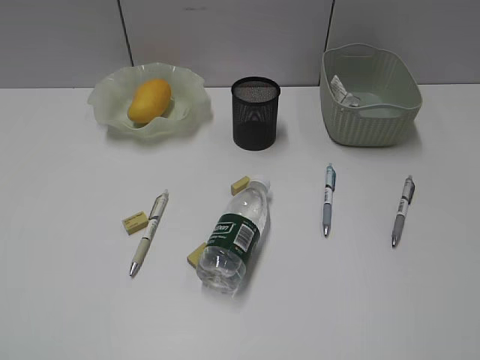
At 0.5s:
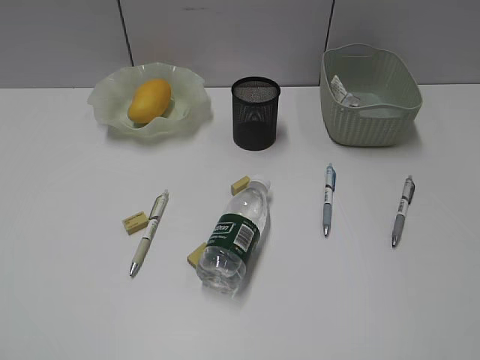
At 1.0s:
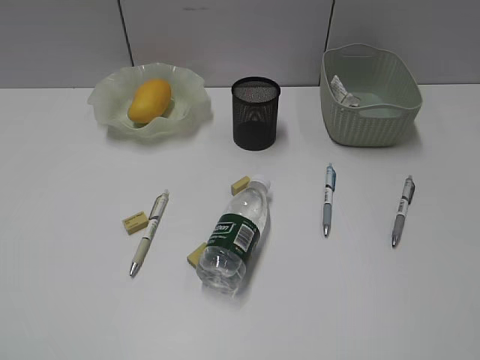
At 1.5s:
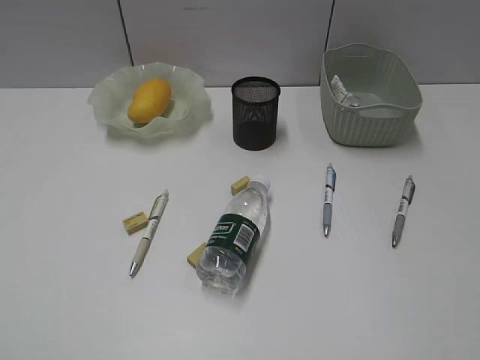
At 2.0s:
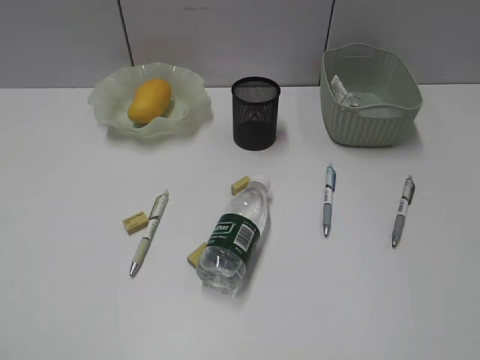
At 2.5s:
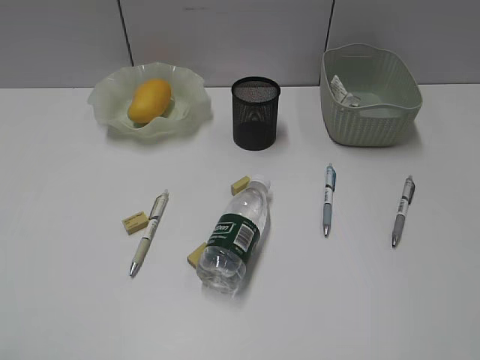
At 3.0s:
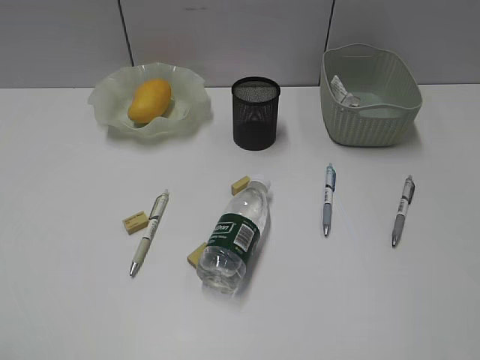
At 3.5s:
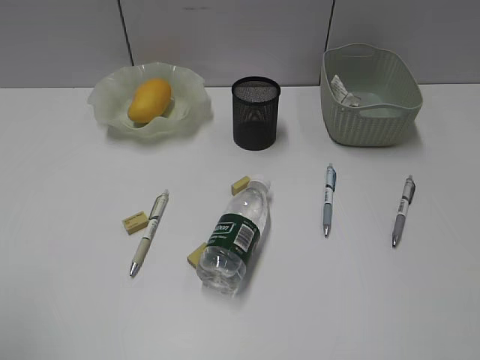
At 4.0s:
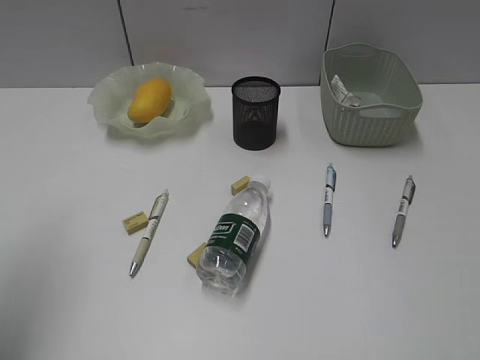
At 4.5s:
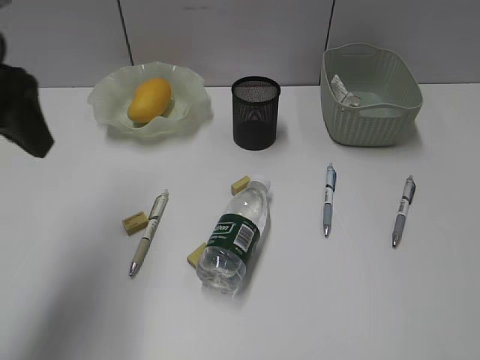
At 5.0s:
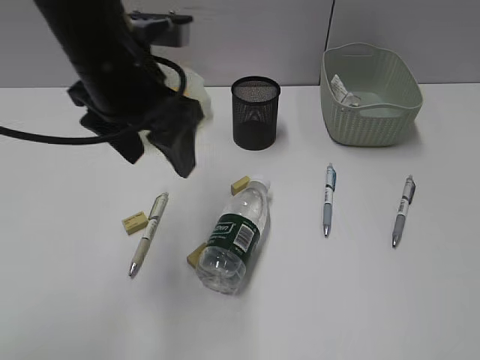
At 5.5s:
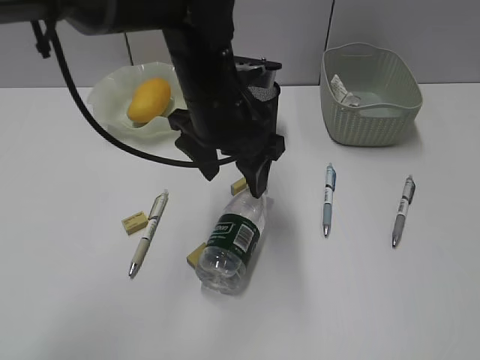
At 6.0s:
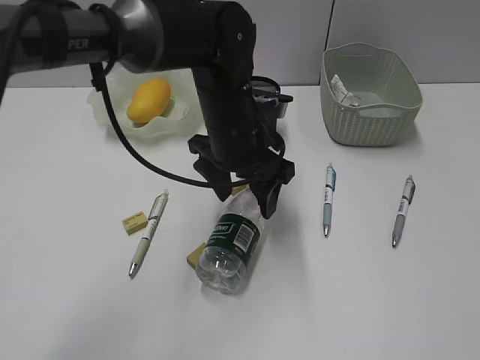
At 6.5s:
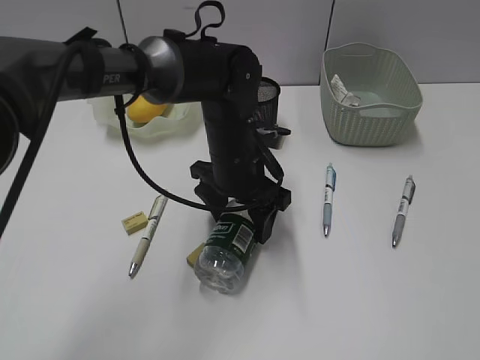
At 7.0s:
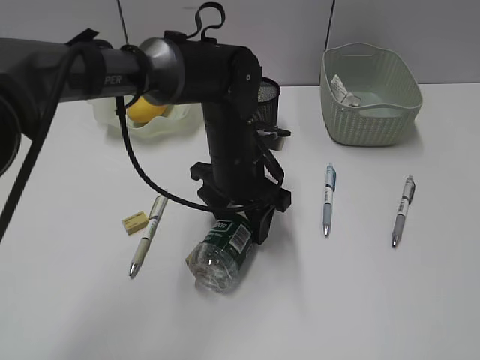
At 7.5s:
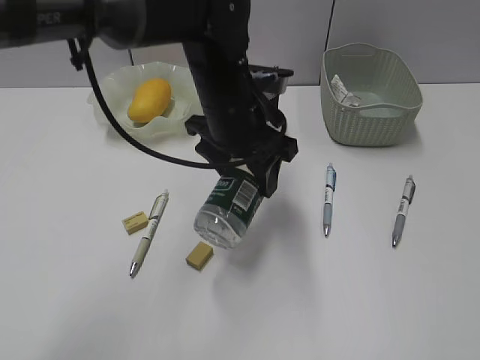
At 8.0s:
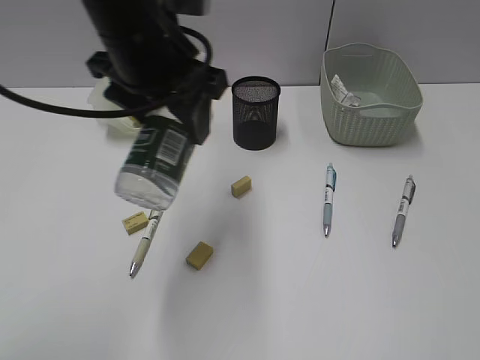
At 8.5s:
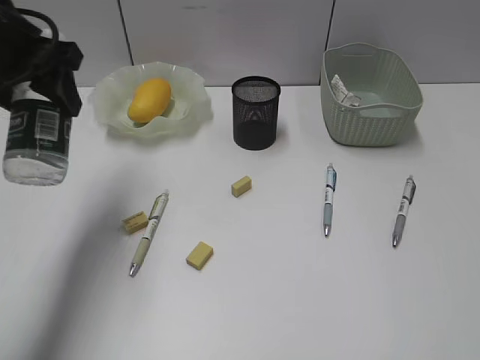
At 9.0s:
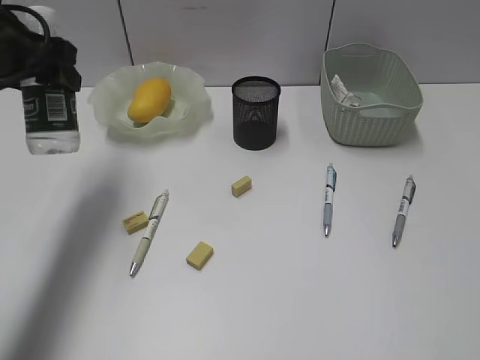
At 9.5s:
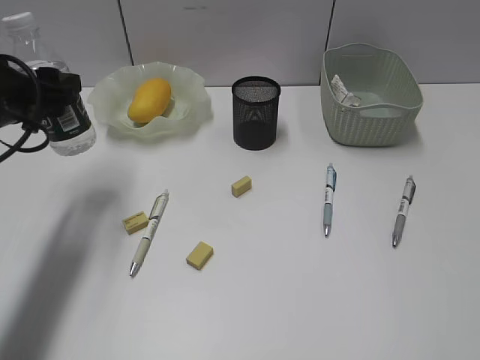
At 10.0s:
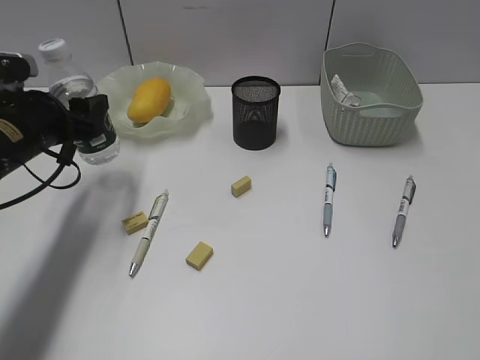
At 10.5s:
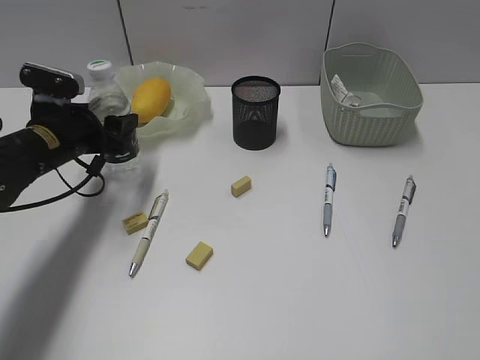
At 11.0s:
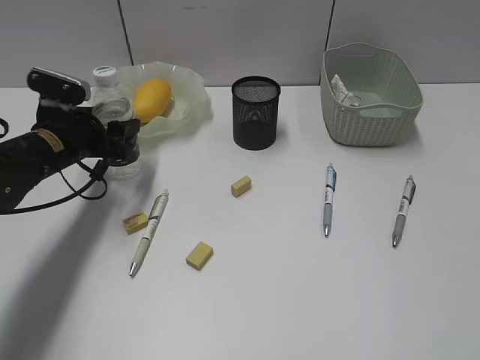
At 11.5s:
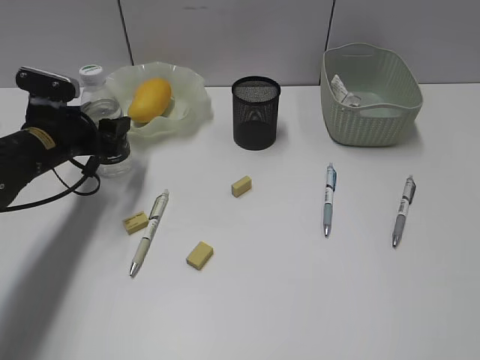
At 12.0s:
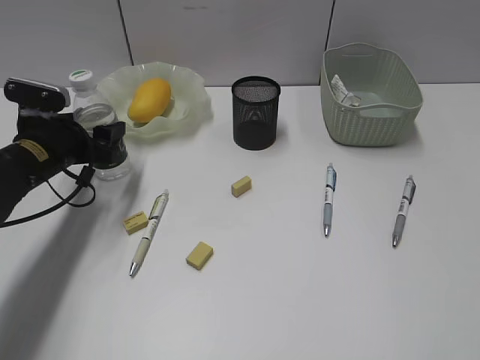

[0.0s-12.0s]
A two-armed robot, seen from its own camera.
Step, 0.0s to 7.0s: Grasp the bottle with left gripper.
0.0s to 2.0s: The two grippers keep their place.
2.0s to 4.0s: The left gripper travels forward by some 15 cm, and opens up.
4.0s to 6.0s: The left gripper goes some 40 cm to the right, forward and downward.
6.0s to 8.0s: The left gripper shifts approximately 15 cm upward and to the left.
8.0s to 10.0s: The left gripper is displaced to the left and downward by about 20 cm.
10.0s to 12.0s: The left gripper goes roughly 5 cm downward.

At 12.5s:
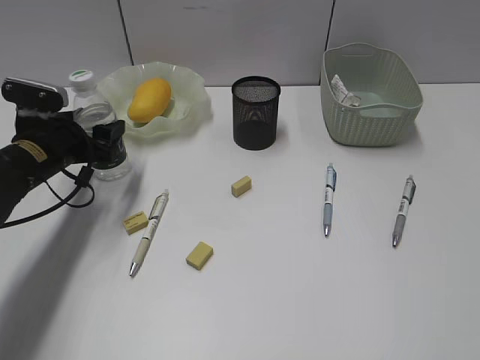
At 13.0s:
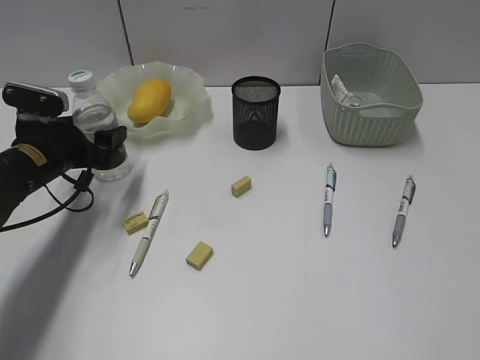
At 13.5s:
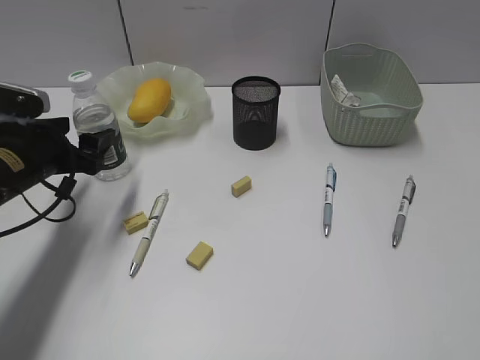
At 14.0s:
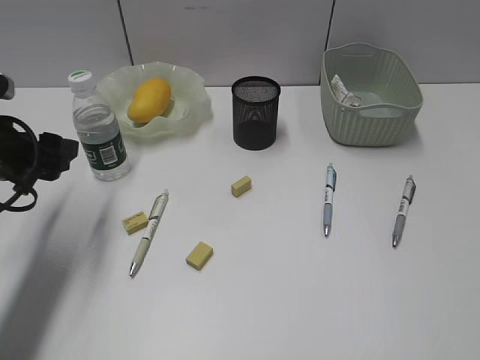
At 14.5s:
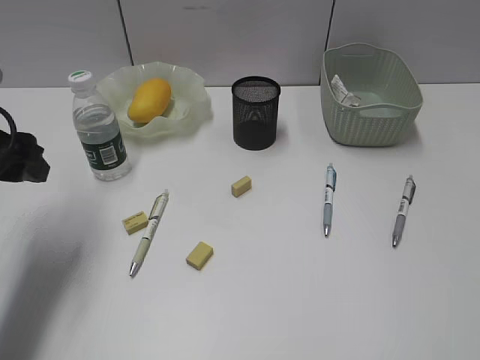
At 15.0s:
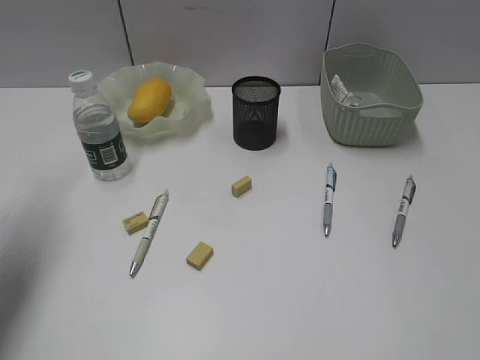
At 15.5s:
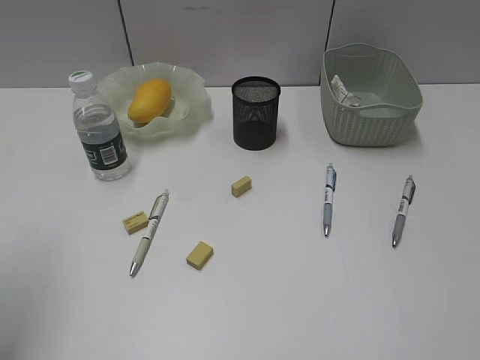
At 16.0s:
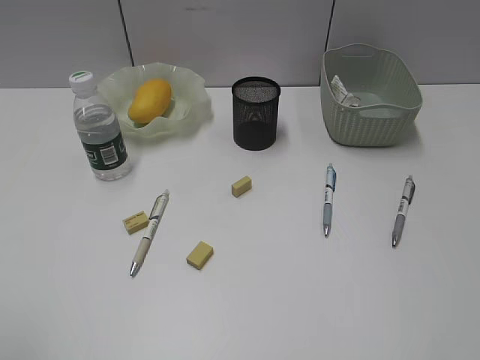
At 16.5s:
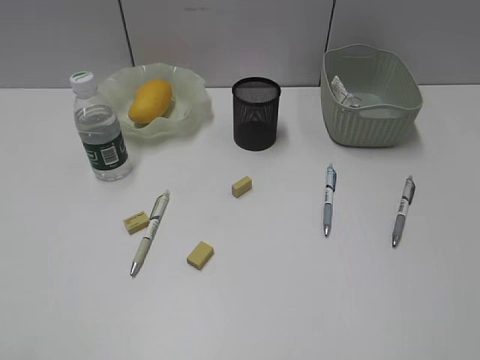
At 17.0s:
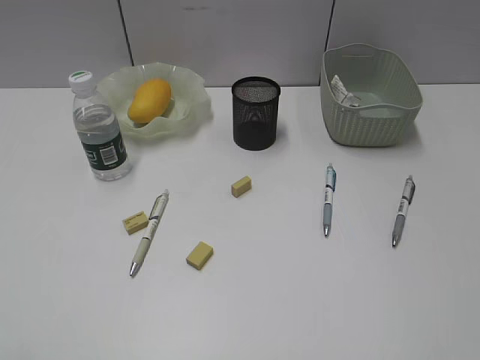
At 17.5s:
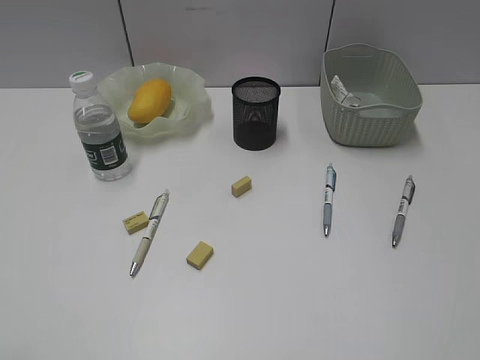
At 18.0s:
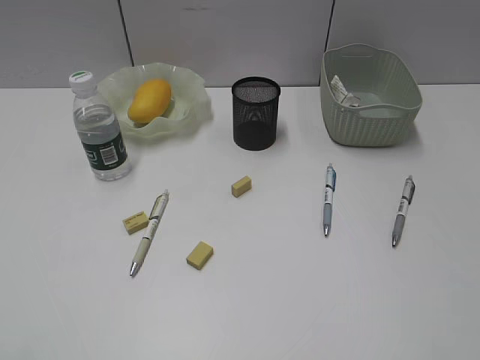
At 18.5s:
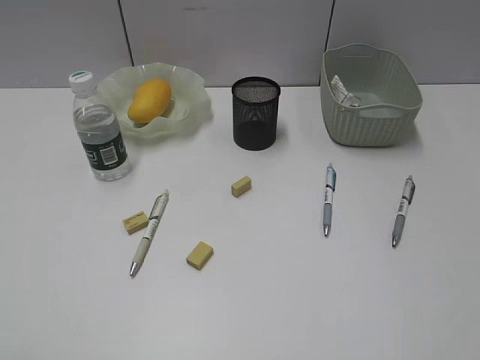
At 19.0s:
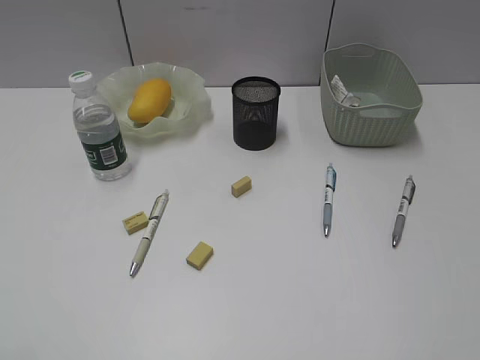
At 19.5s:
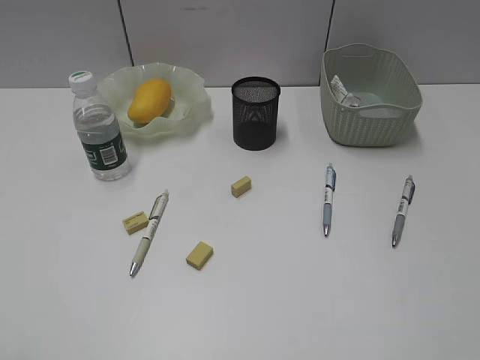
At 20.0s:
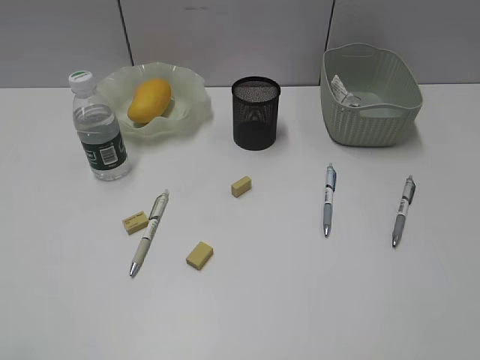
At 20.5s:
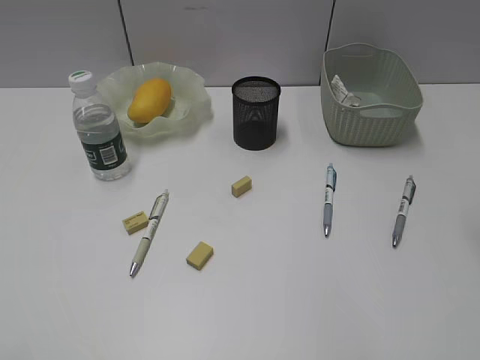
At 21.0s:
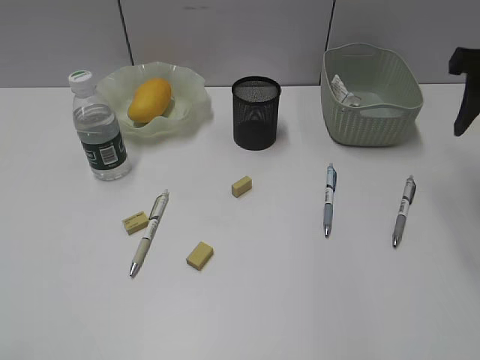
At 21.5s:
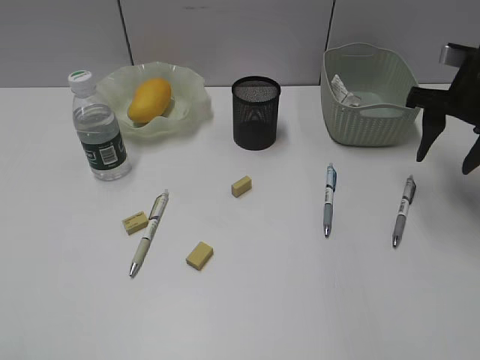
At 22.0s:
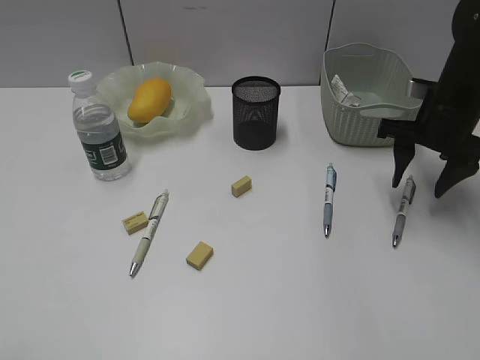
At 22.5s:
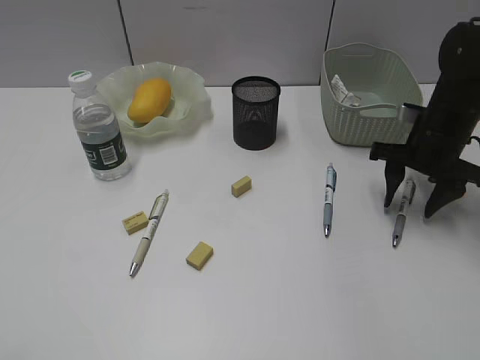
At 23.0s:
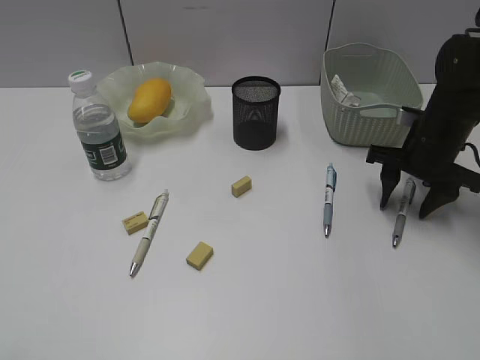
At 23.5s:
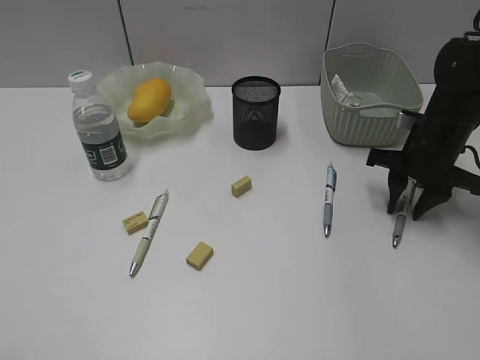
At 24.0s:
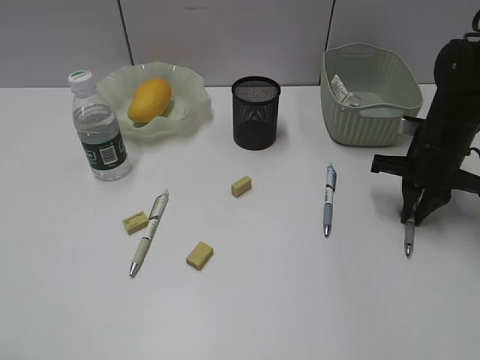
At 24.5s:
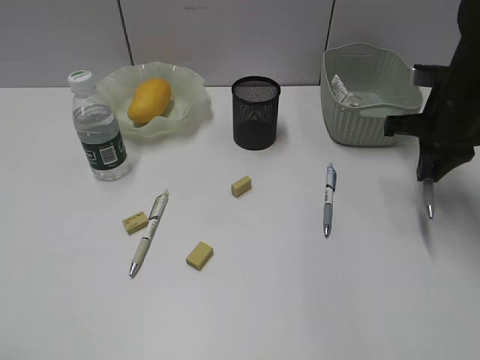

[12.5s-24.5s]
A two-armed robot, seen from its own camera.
Step, 14.0s to 23.5s: Grasp the gray pen with right gripper.
12.5s to 14.5s: The left gripper is displaced upward and backward by about 15 cm.
14.5s to 16.5s: The left gripper is displaced backward by approximately 30 cm.
16.5s to 18.5s: Both grippers stay about where they are.
20.5s to 22.5s: The right gripper shifts about 30 cm downward and forward.
22.5s to 24.5s: The right gripper goes about 5 cm upward, and closes up.

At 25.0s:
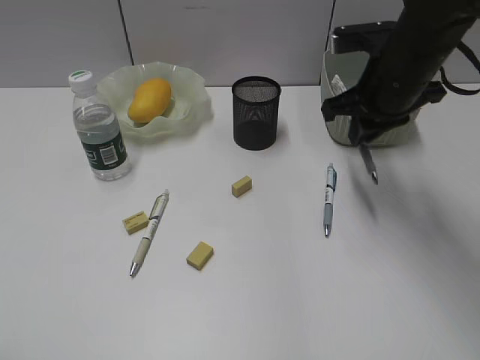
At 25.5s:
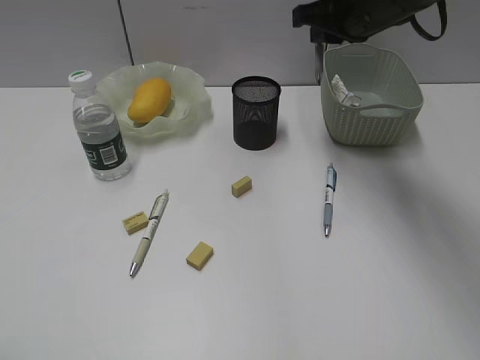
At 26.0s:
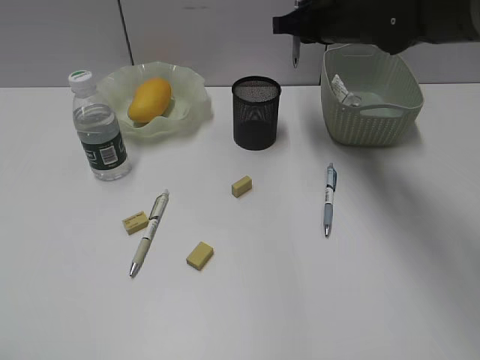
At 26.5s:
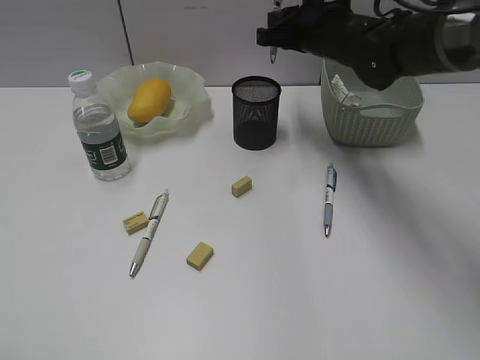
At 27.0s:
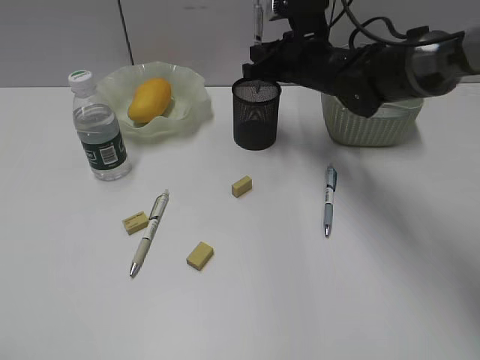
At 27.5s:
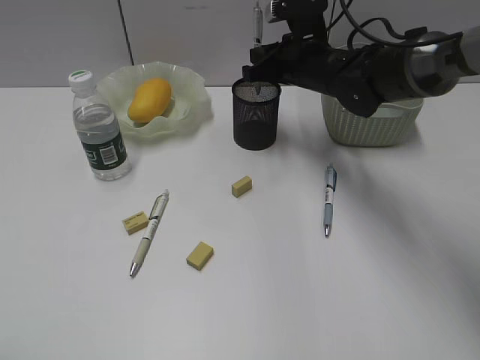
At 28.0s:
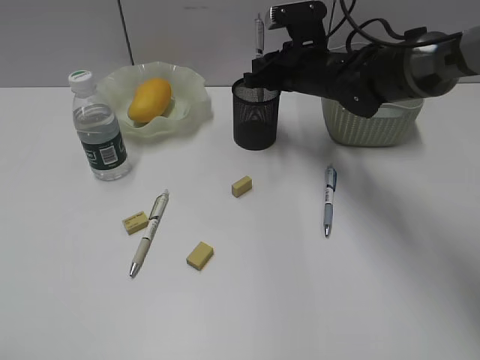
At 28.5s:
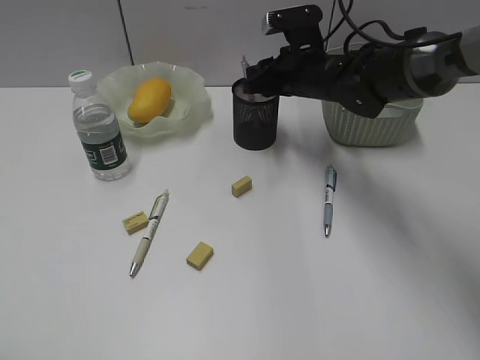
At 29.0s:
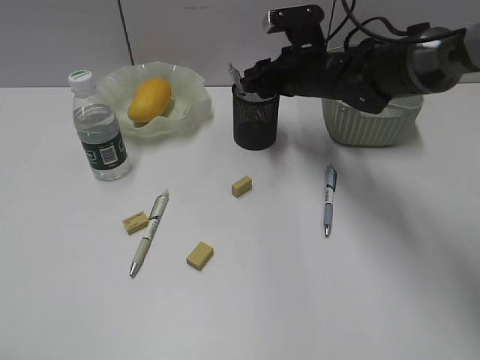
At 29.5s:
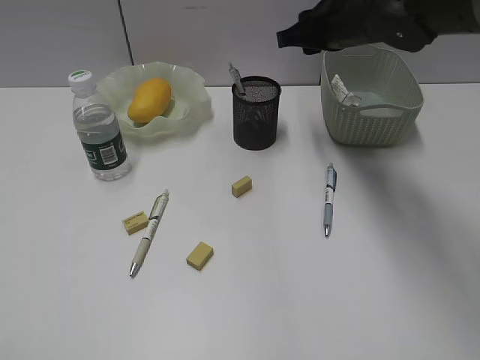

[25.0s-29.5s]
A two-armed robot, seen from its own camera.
Step, 25.0s to 28.5s: Place the gray pen in pen holder with right gripper.
25.0s to 27.0s: The right gripper travels forward and to the left by roughly 10 cm.
27.0s to 29.5s: The right gripper shifts some 5 cm upward.
